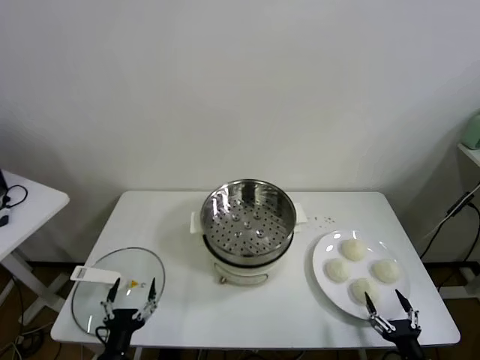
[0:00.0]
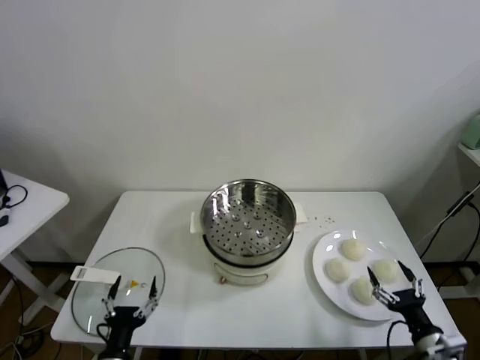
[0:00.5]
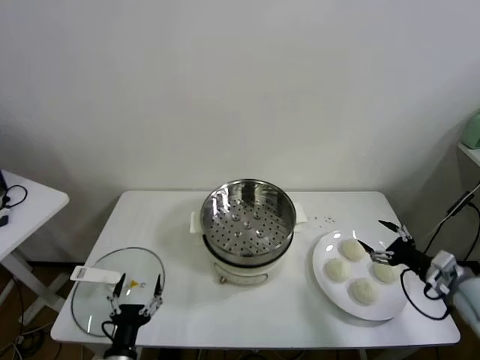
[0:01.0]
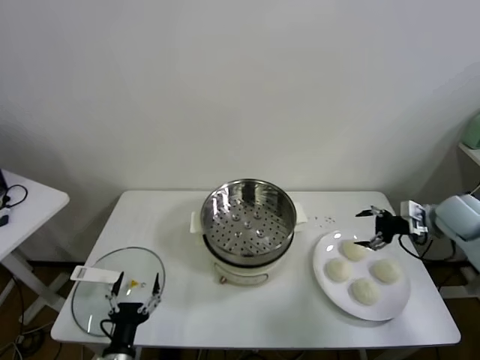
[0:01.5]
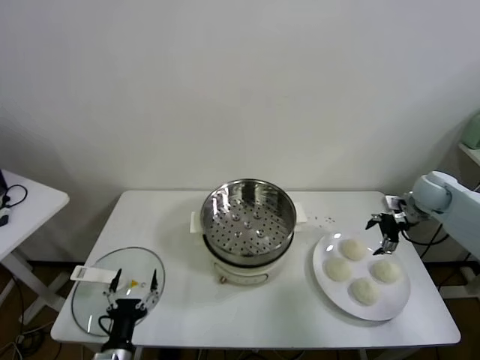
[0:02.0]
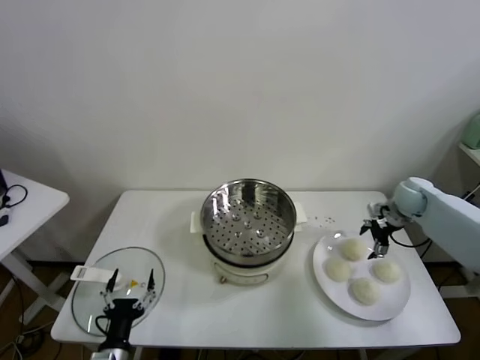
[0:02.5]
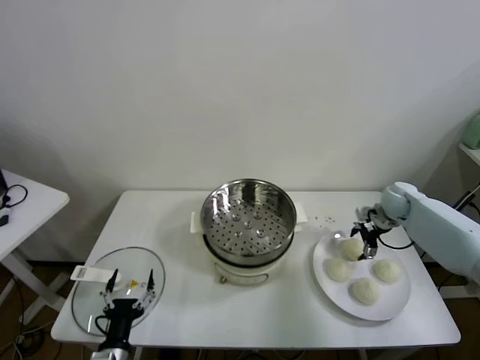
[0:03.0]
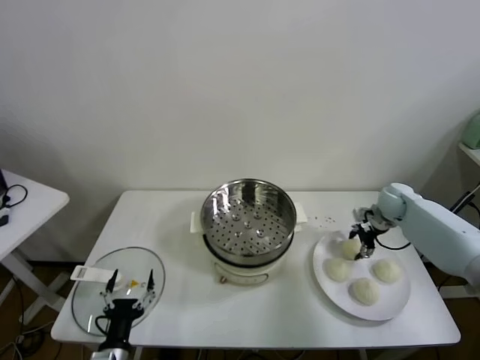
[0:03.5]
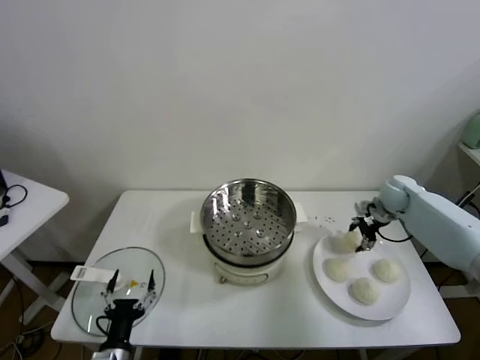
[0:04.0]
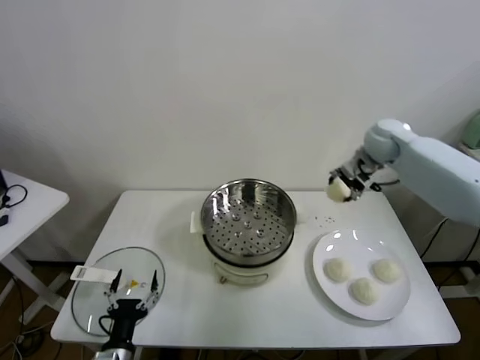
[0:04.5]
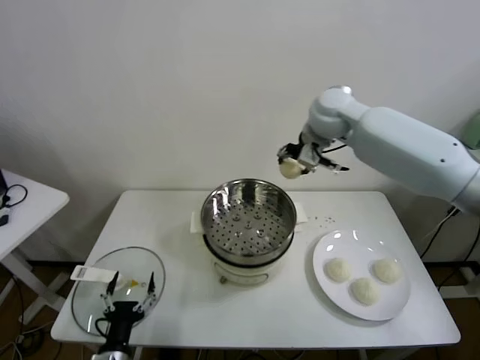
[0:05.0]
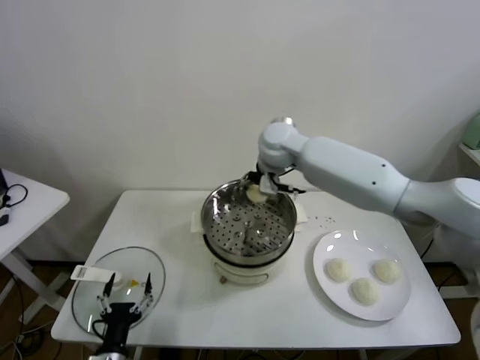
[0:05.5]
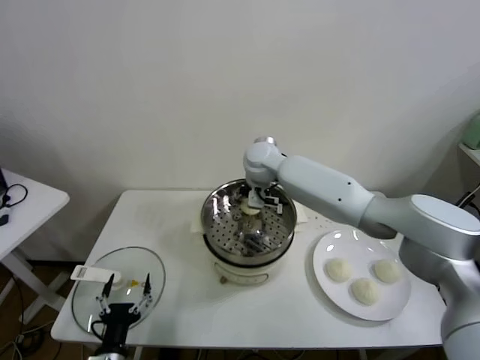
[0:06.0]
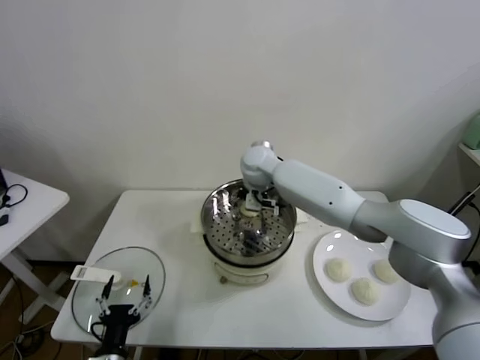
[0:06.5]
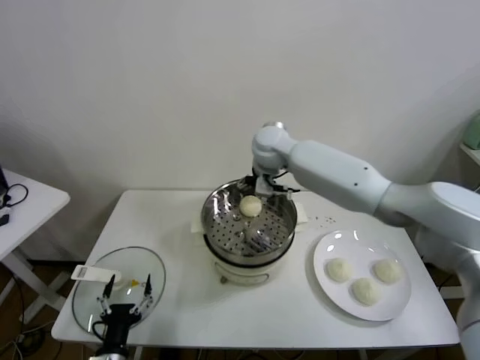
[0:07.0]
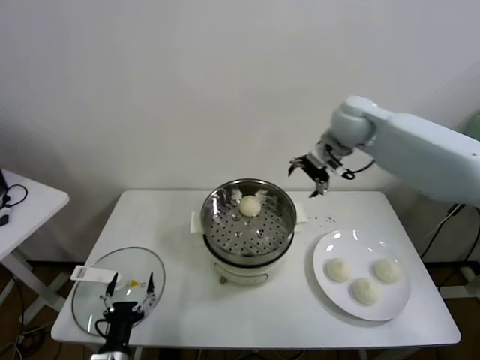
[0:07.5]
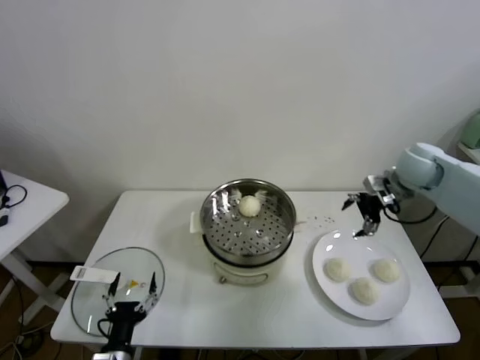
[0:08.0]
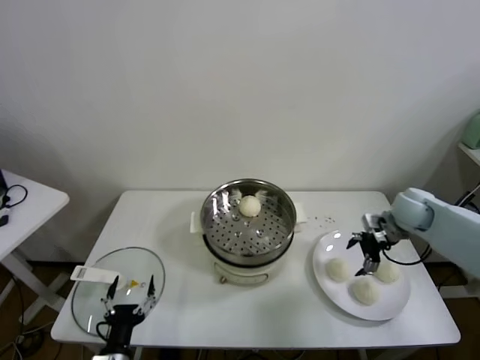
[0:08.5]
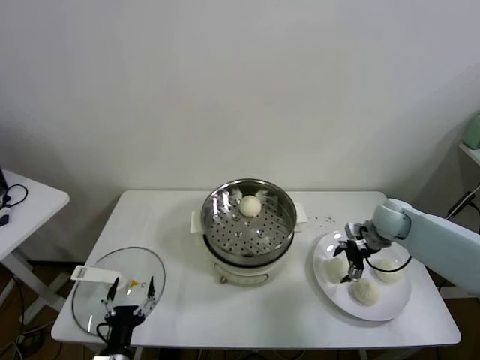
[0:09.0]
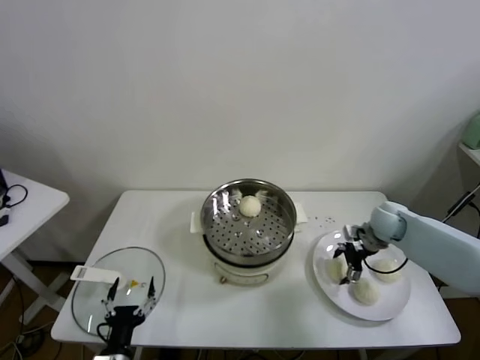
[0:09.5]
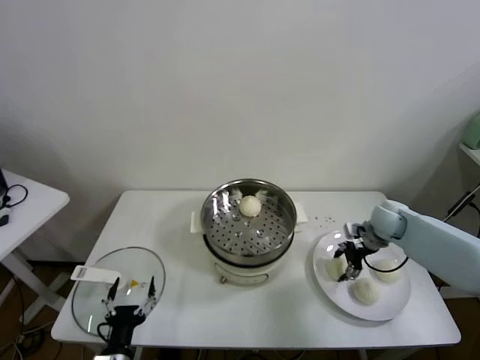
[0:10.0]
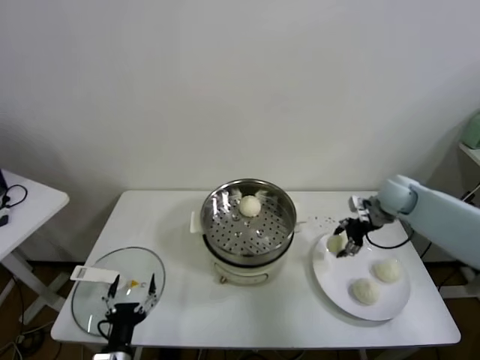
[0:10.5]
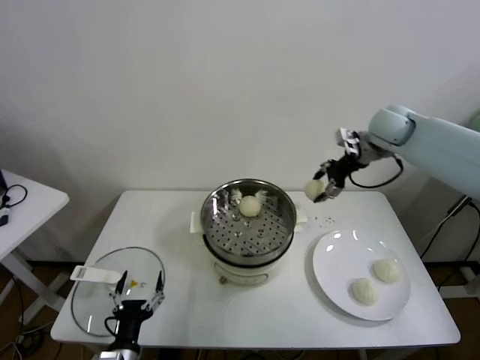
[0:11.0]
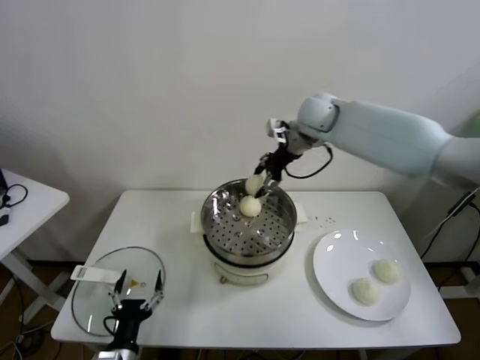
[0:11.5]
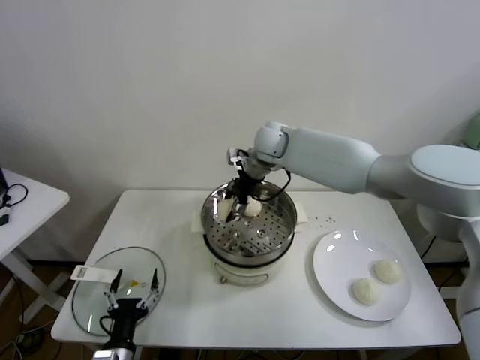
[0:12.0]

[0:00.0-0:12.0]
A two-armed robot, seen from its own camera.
Task of the whole recording: take steamed baozi put them in steamer.
Step, 0.0 to 3.5 s: Grasp the baozi in the plate with right gripper.
Step, 4.0 to 6.5 s: Place the baozi on the steamer with right gripper.
Step, 7.0 to 9.5 s: Grasp the baozi in the plate with right gripper.
2.0 to 4.0 s: The right gripper goes about 5 cm to the left, and closes up.
4.0 to 6.0 s: The right gripper shifts some 35 cm to the left.
6.0 to 8.0 s: The right gripper heads to the right, covering about 35 cm, and opens up.
8.0 to 10.0 s: The right gripper moves downward, approximately 15 cm, and closes up.
10.0 to 12.0 s: The right gripper travels to the left and upward by some 35 cm.

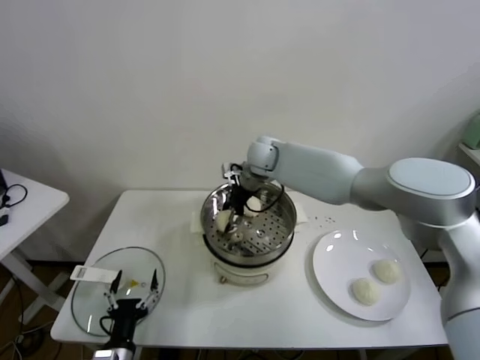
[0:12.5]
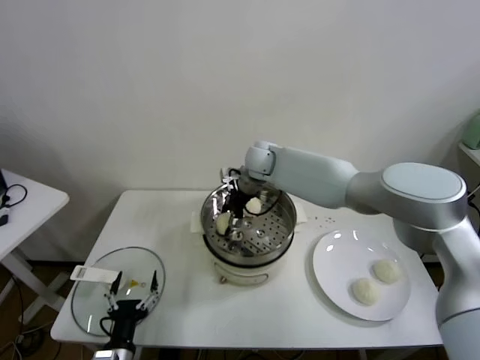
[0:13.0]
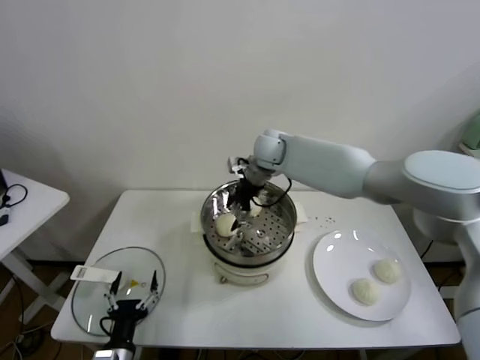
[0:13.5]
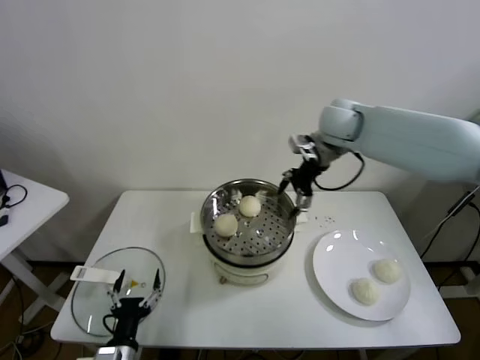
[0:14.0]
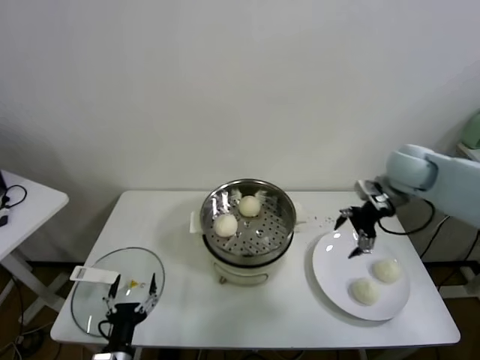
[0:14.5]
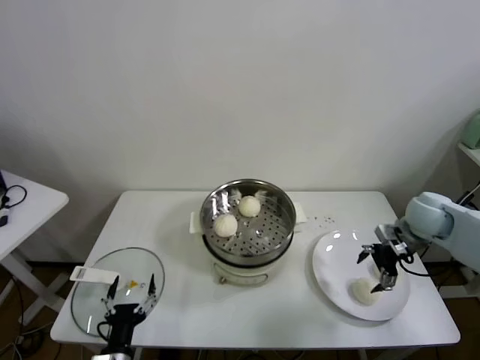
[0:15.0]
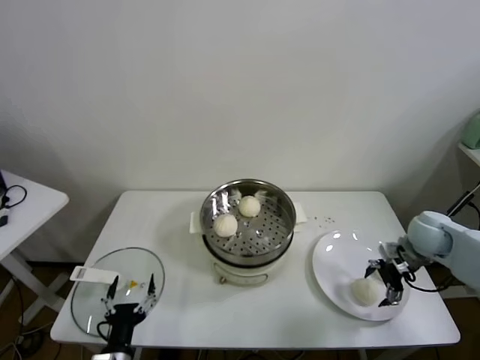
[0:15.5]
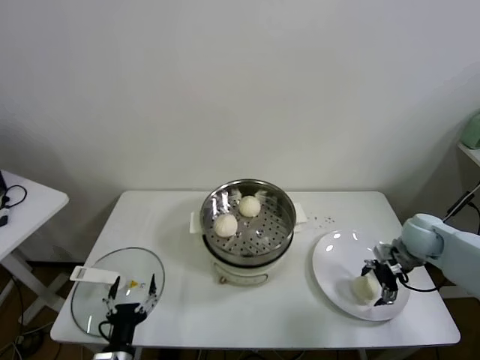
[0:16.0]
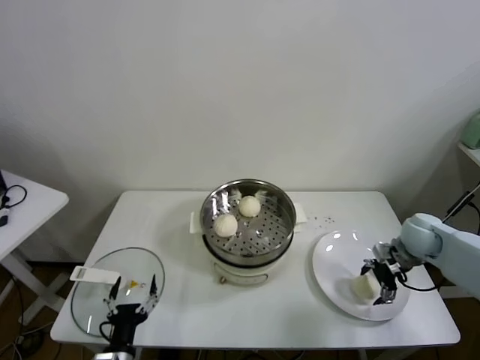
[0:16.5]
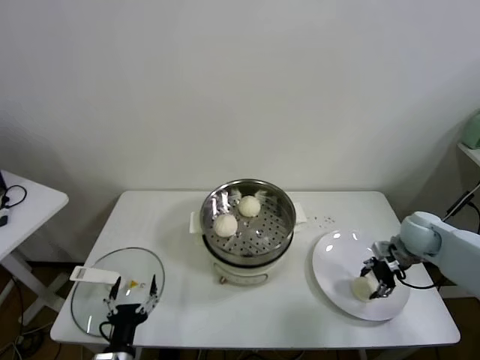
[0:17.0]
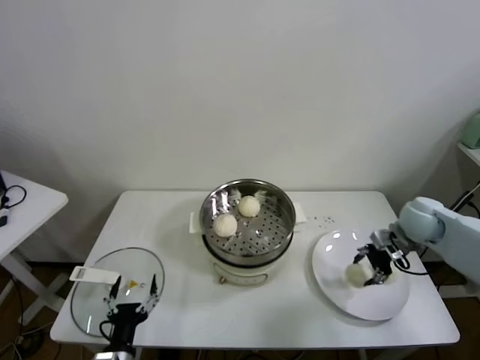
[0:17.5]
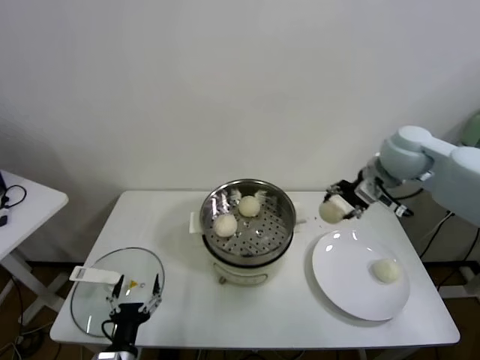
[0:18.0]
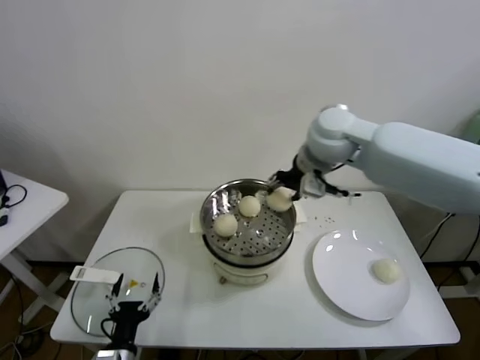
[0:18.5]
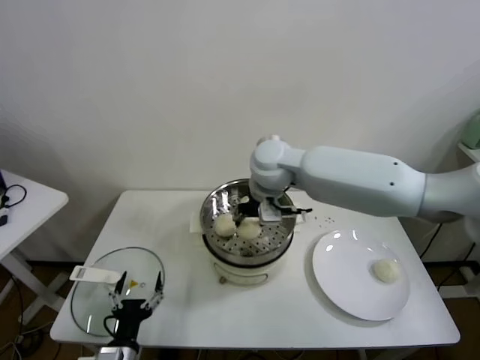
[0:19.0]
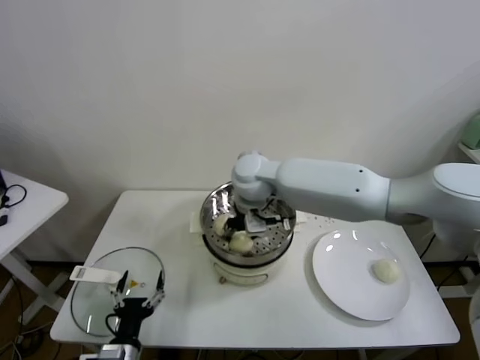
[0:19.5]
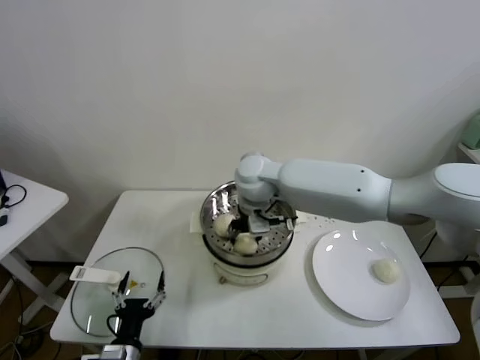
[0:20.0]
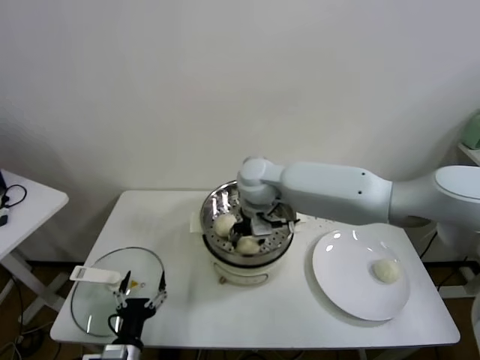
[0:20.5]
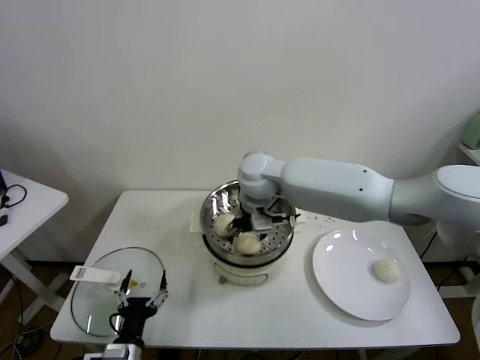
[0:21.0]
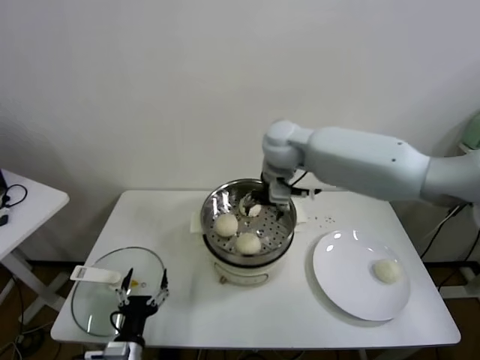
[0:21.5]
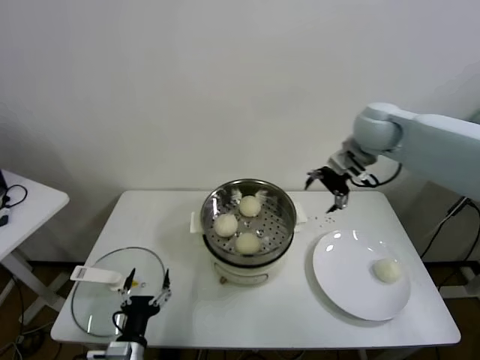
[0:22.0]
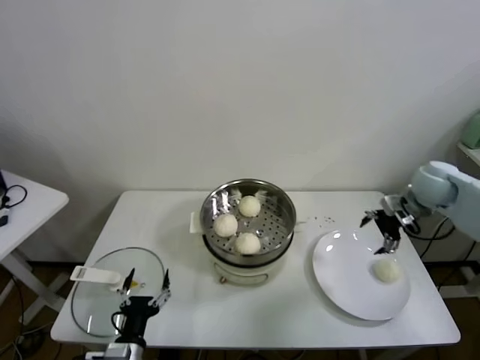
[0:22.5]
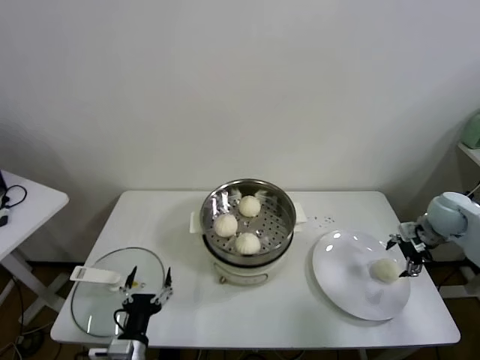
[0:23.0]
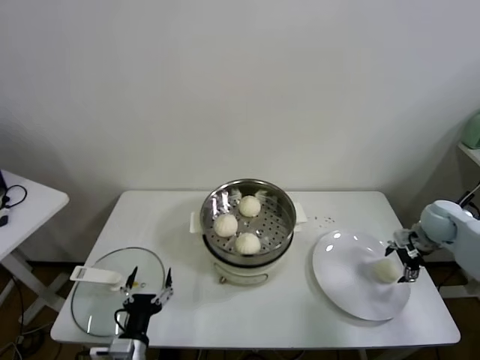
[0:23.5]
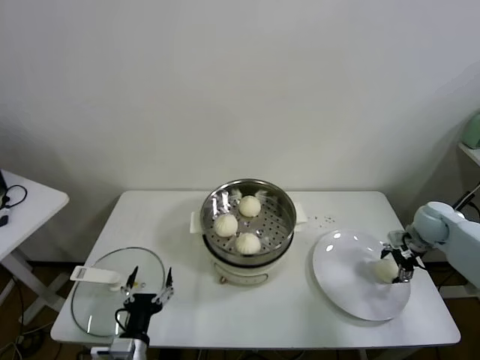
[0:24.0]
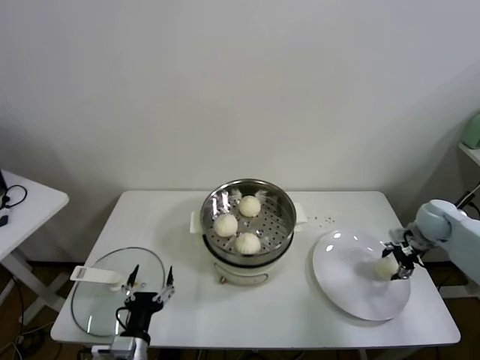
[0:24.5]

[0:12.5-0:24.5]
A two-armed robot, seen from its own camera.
Task of the whole recording: take steamed baozi put them in steamer.
Step, 13.5 to 16.5 s: Grasp the baozi in the plate with right gripper.
Step, 17.0 to 20.5 s: Place the baozi on the steamer with right gripper.
Step, 21.5 to 24.0 s: Grasp the baozi in the plate with right gripper.
12.5 to 14.5 s: The right gripper goes roughly 30 cm to the right, and opens its fingers.
14.5 to 16.5 s: The right gripper travels downward and to the right by roughly 15 cm.
16.5 to 18.5 s: The right gripper heads to the left and upward, covering approximately 35 cm, and closes.
18.5 to 20.5 s: The right gripper moves to the left and downward, approximately 15 cm.
20.5 to 22.5 s: The right gripper travels to the right by roughly 40 cm, and opens.
22.5 to 24.5 s: The right gripper is displaced downward and to the right by about 15 cm, and closes its fingers.

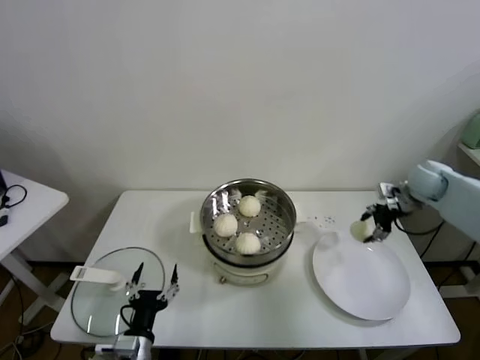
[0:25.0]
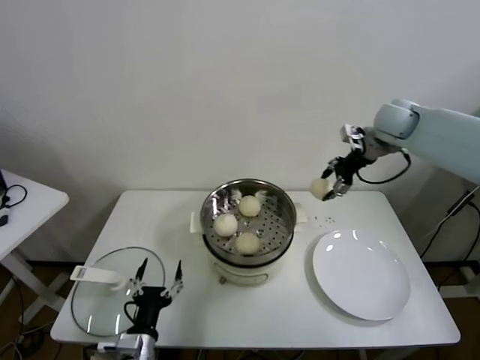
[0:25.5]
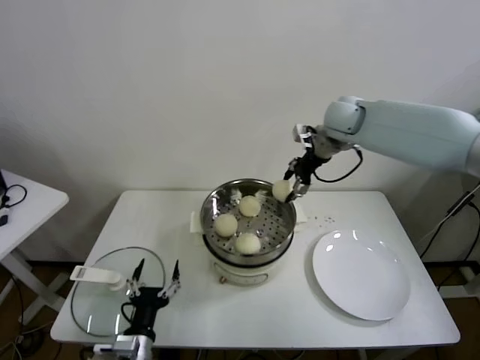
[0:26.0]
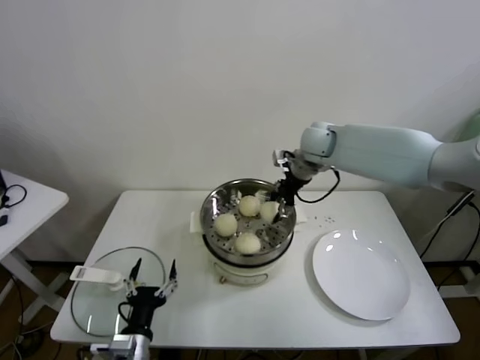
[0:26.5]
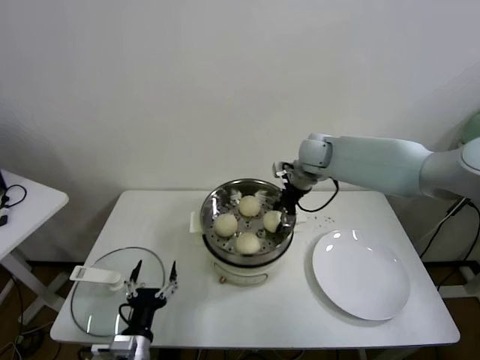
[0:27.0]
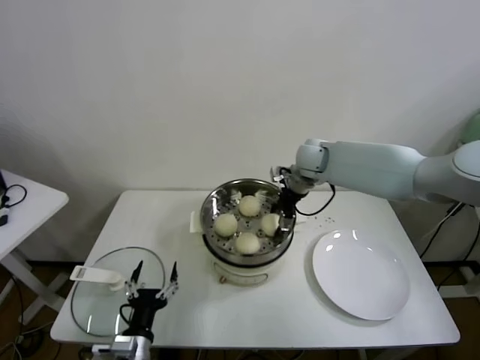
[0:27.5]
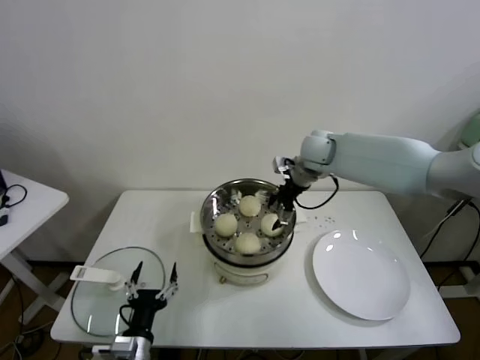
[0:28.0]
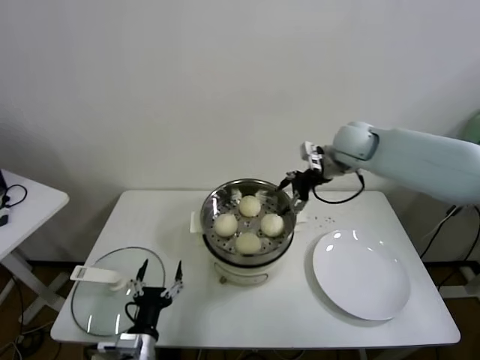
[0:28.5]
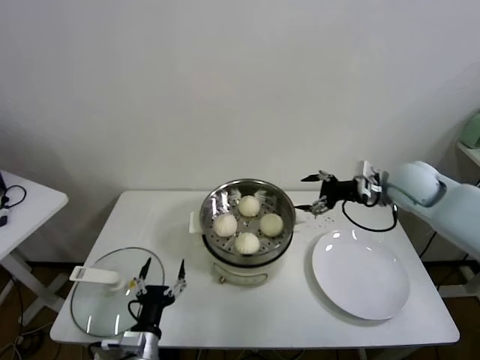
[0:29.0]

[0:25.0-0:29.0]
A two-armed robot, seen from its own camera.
Task of the whole recording: take steamed baozi put them in steamer.
Step, 25.0 to 27.5 s: Place the baozi on the steamer with right gripper.
25.0 to 27.0 s: The right gripper heads to the left, covering some 25 cm.
27.0 to 29.0 s: The right gripper travels to the right and backward by approximately 20 cm, and opens up.
